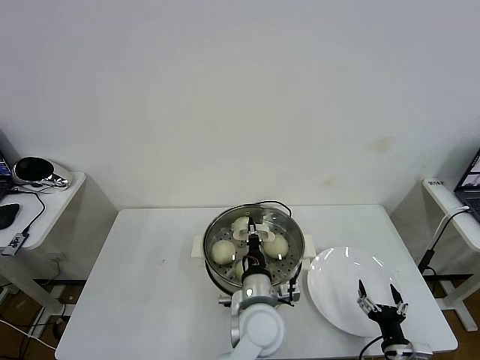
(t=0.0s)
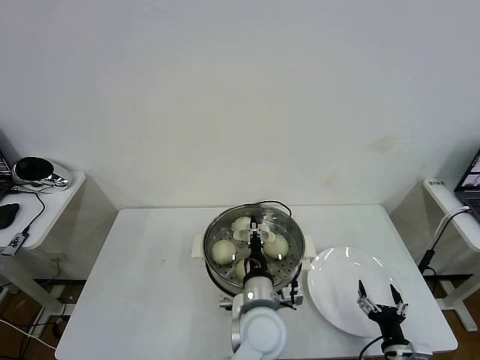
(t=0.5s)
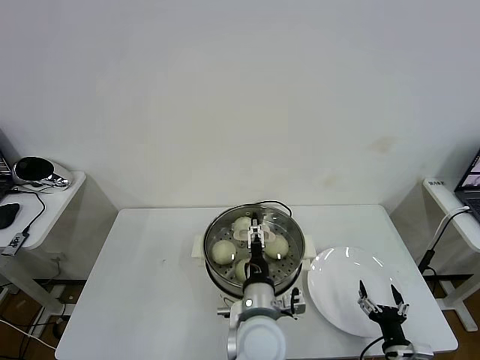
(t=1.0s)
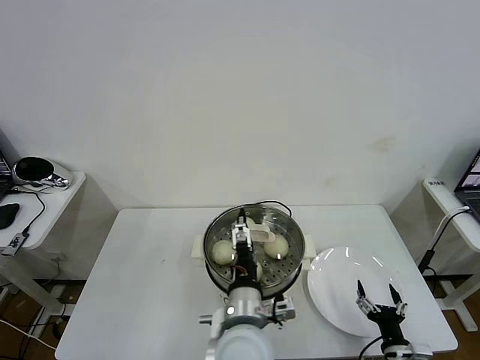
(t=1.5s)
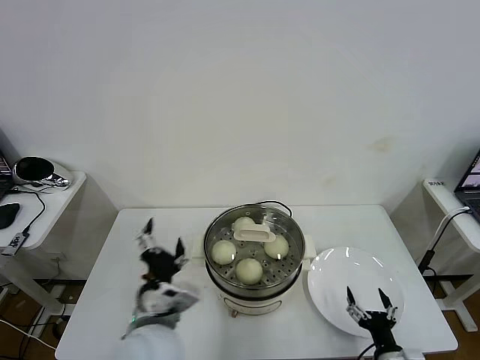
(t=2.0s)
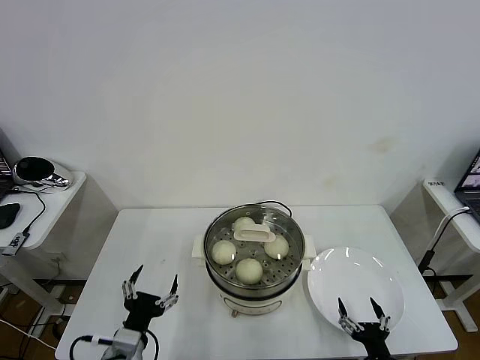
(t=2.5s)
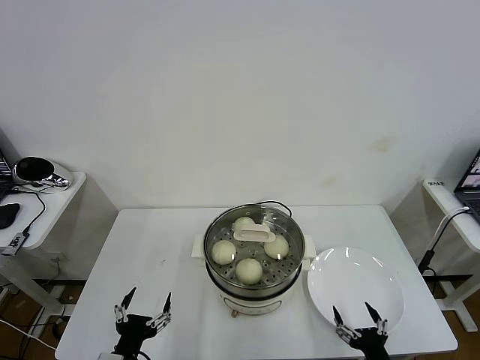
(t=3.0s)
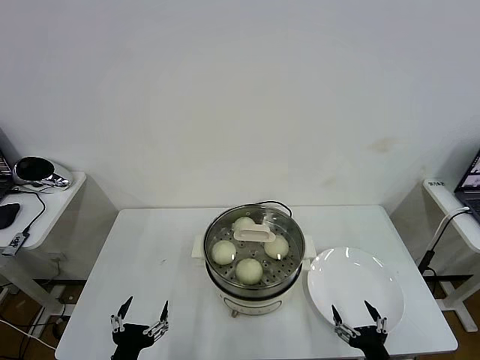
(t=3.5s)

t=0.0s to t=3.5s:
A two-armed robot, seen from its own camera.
Task of the whole recording: take steamed baozi put them in steamer then cover it.
t=0.0s to t=2.0s: The left gripper shifts approximately 20 cm to the left, upward and backward, and opens.
t=2.0s to t=3.5s: The left gripper heads to the left, downward and backward, covering roughly 20 cm. Meanwhile the right gripper changes place by about 5 cm.

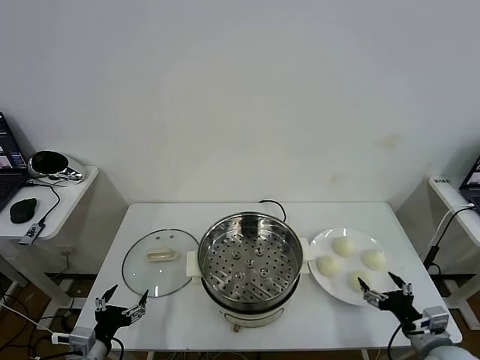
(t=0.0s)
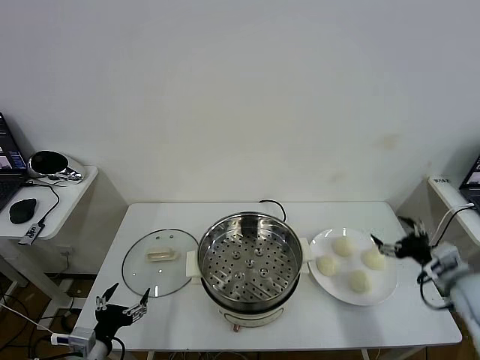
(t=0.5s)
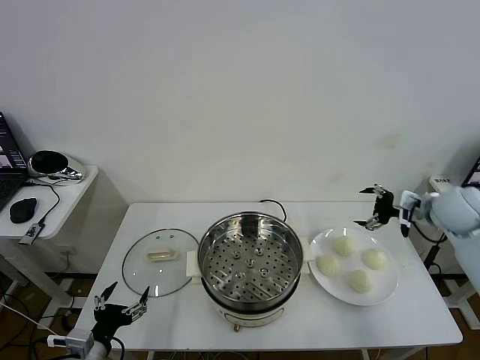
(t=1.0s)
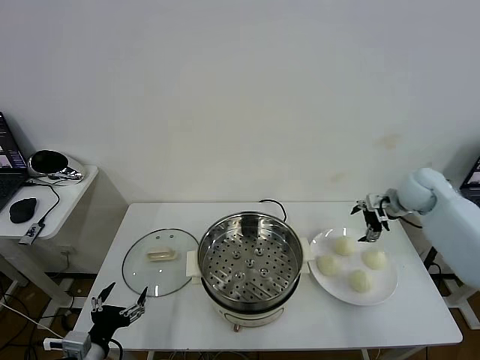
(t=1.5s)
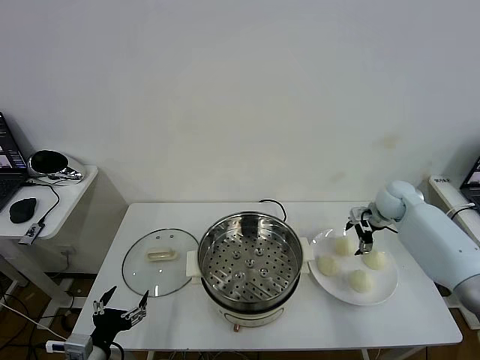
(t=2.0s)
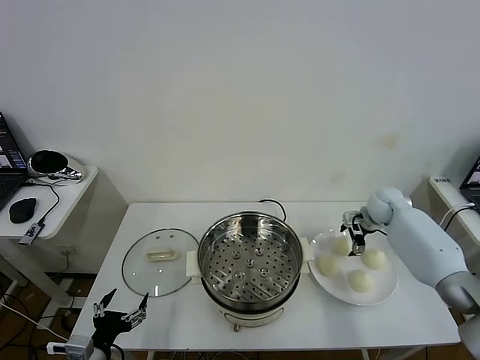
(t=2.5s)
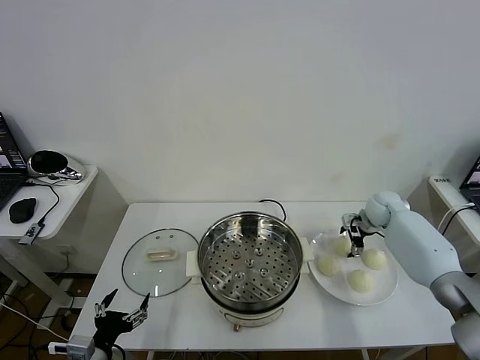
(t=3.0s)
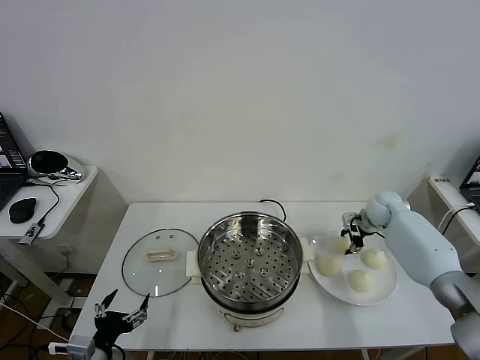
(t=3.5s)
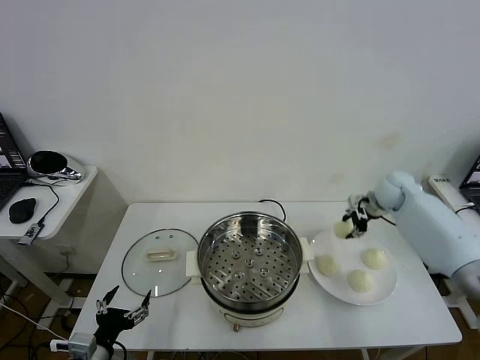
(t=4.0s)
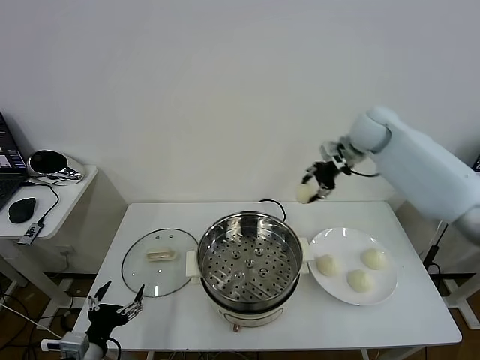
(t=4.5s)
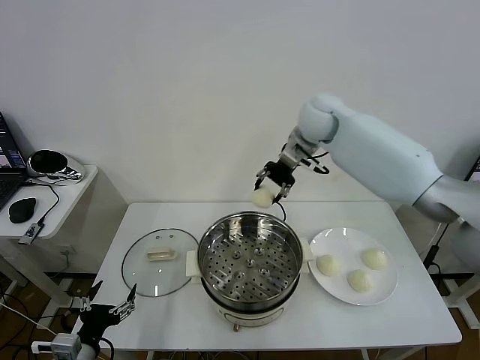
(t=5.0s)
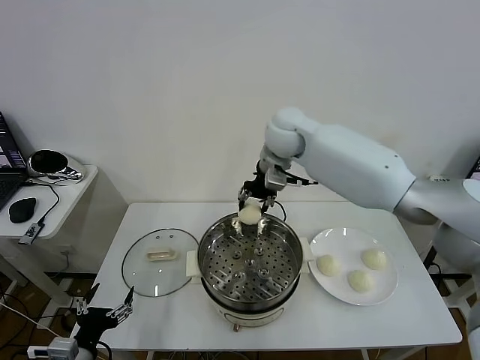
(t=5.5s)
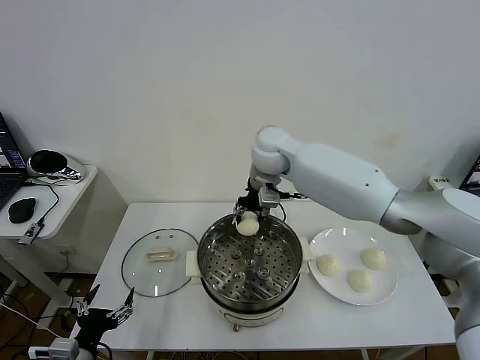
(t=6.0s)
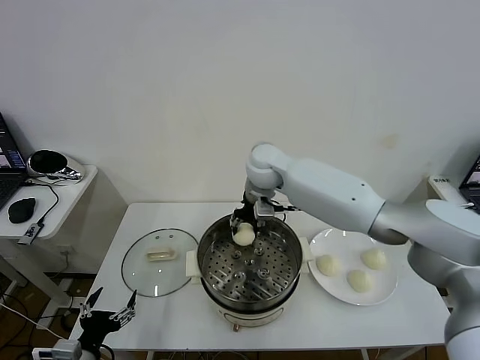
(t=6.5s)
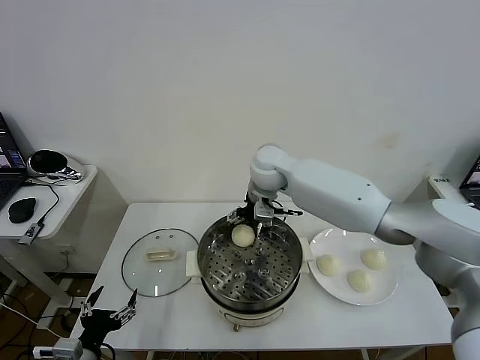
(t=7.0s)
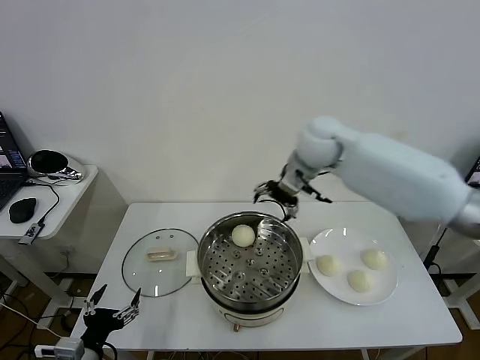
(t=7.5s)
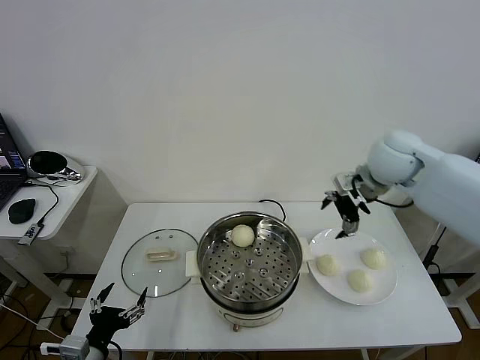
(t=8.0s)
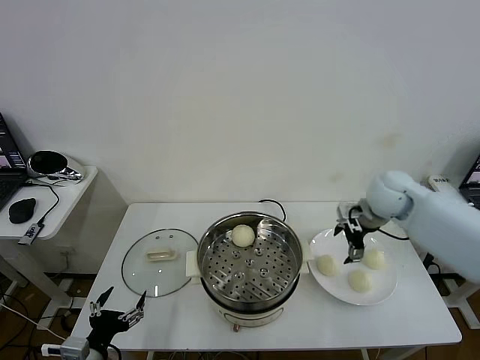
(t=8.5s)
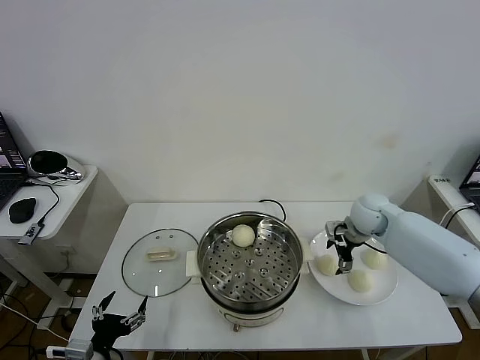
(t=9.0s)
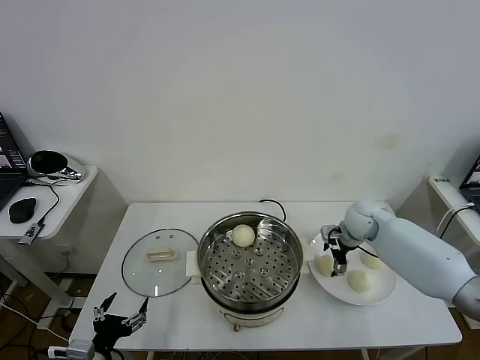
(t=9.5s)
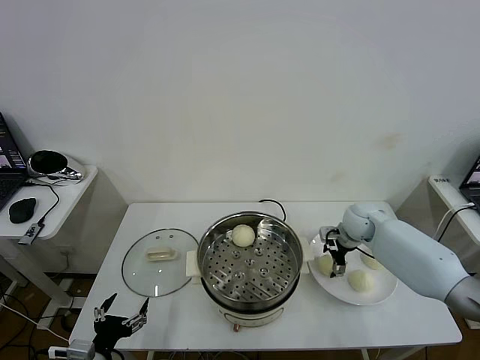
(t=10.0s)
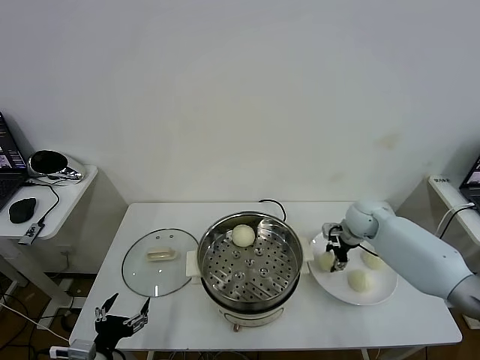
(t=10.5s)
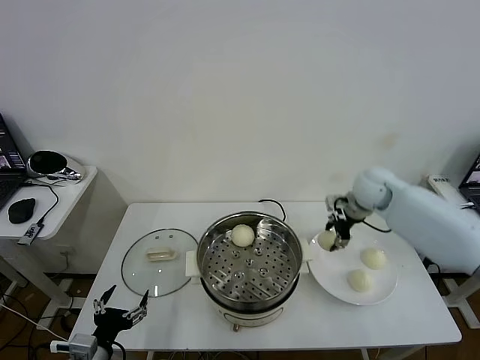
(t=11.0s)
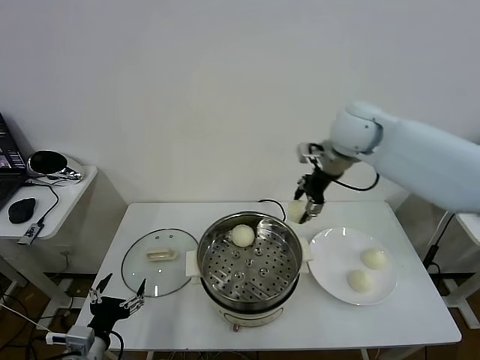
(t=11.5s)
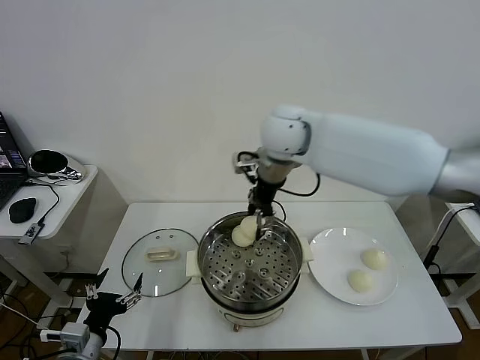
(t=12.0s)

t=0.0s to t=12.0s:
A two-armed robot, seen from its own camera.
Task of the whole recording: take steamed baozi put them in steamer then cover it.
Step, t=0.0s to t=3.0s: Grasp the baozi in the plate with right gripper.
Step, t=3.5s to t=7.0s: Place the baozi on the steamer with right gripper.
Step, t=7.5s to t=10.0s: Grasp the baozi in the plate with right gripper.
t=2.0s to t=4.0s: The right gripper is displaced upward by roughly 10 cm, and closes up.
t=4.0s to t=6.0s: The right gripper is displaced to the left by about 30 cm.
t=6.0s to t=8.0s: The right gripper heads to the right, covering roughly 25 cm, and opens up.
t=8.0s to t=10.0s: The right gripper is displaced downward by approximately 20 cm.
t=10.0s to t=12.0s: The right gripper goes about 35 cm upward and to the left, and closes.

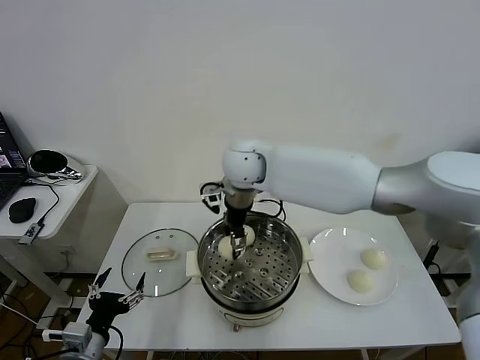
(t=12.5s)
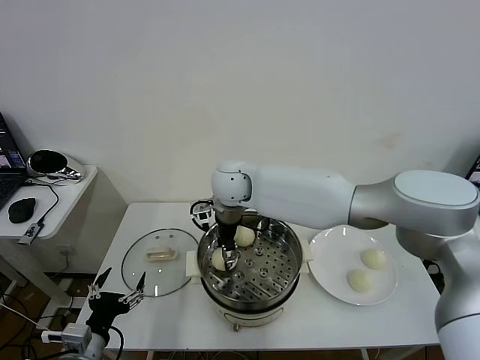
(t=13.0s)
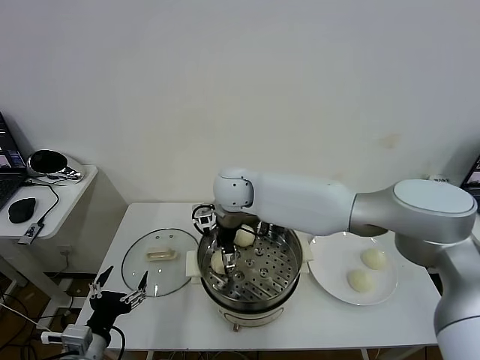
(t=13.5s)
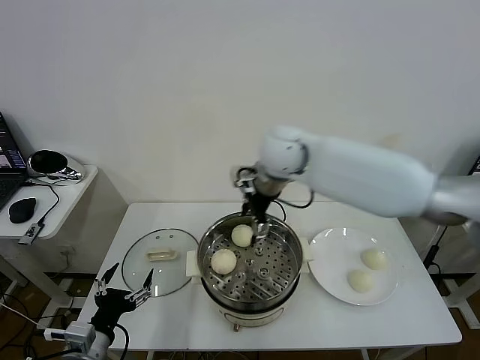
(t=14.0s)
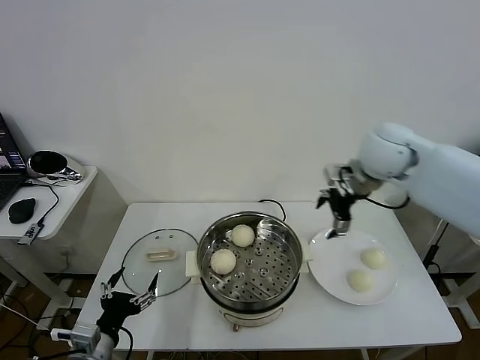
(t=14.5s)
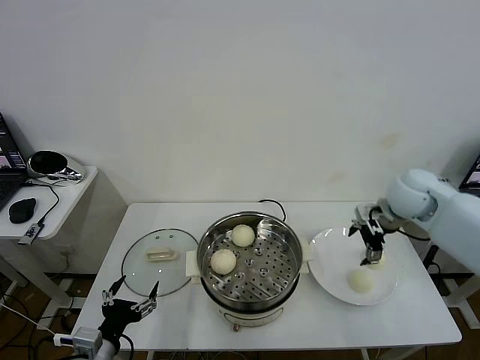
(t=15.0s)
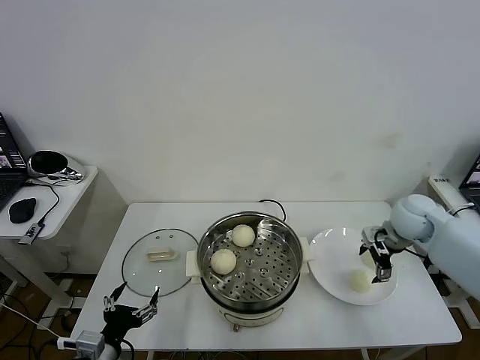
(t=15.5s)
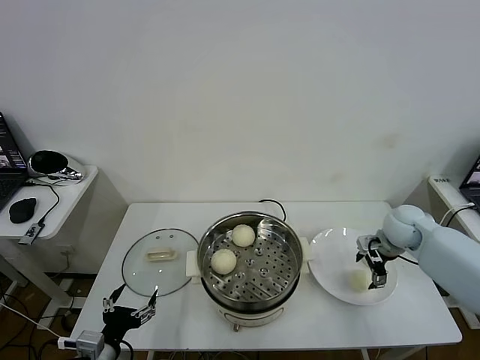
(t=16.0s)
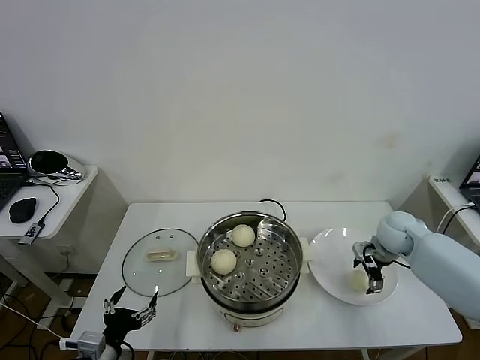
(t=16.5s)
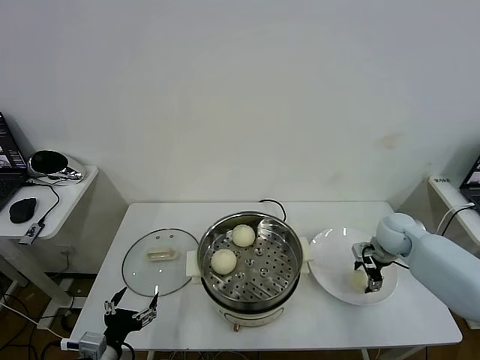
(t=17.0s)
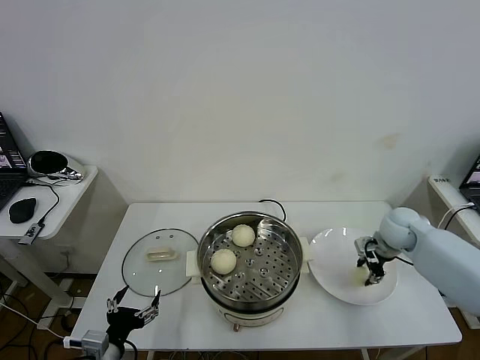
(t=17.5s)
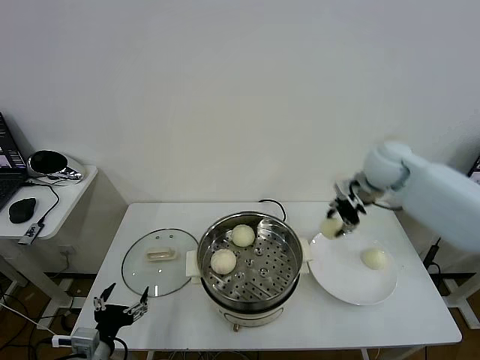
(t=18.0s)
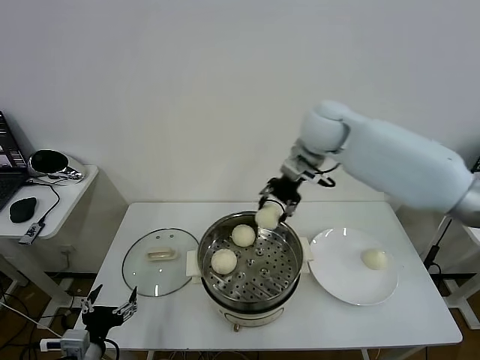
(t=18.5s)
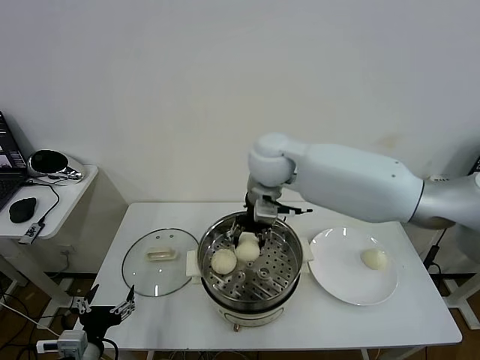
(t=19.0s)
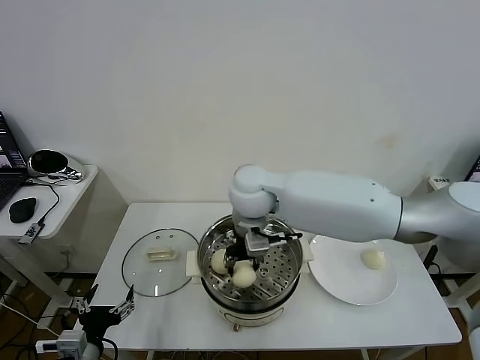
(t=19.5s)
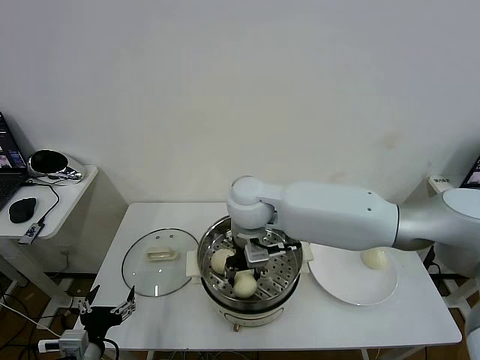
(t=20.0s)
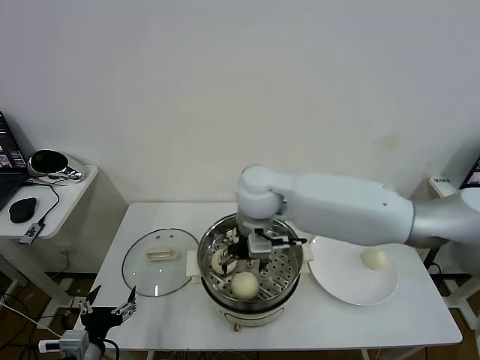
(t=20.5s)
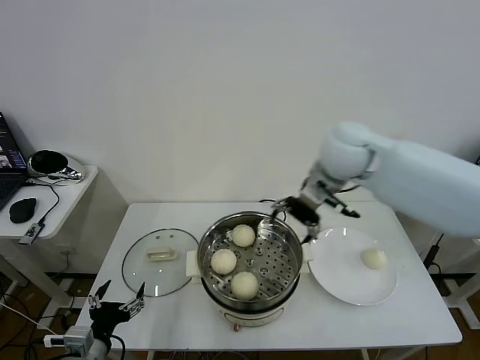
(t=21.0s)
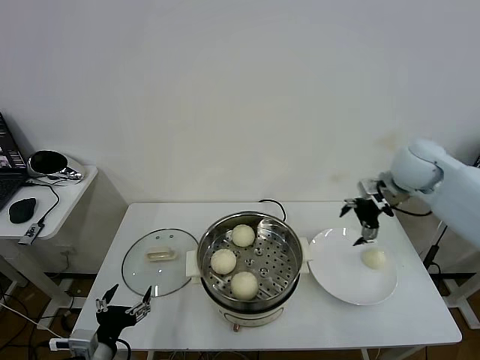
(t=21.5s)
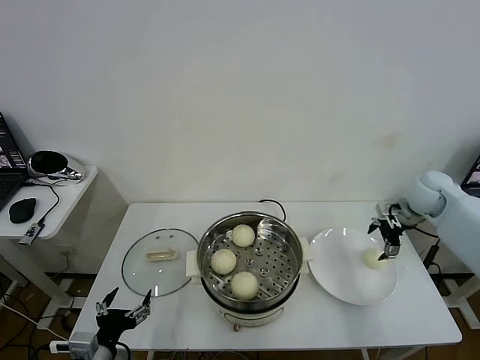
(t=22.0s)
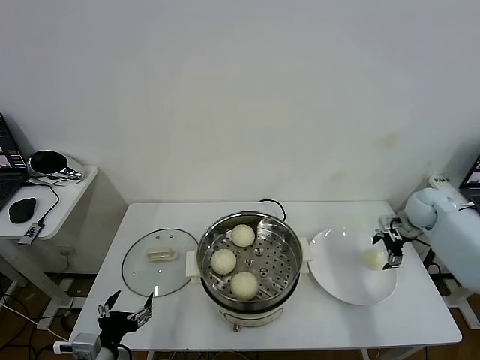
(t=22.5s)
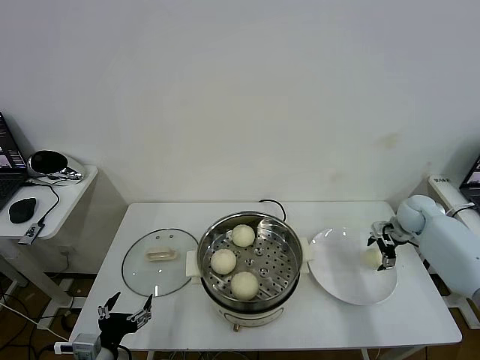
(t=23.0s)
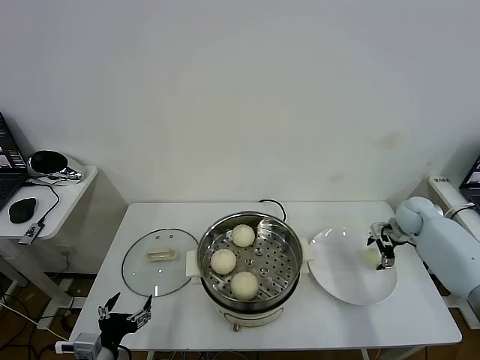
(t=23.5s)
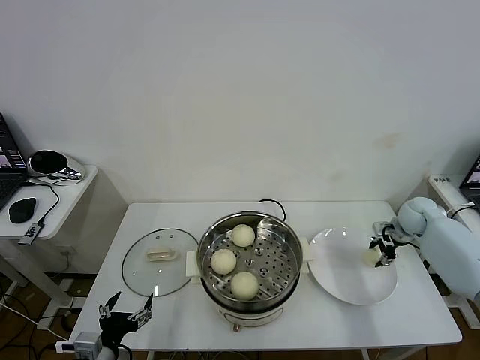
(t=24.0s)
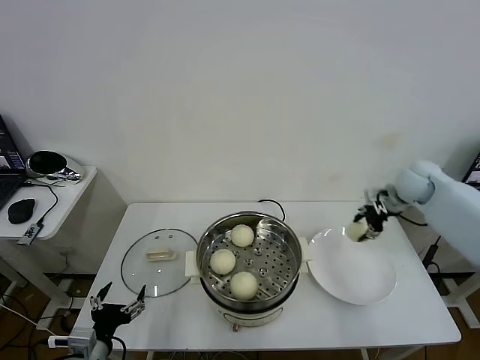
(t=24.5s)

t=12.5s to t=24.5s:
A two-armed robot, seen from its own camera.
Task of the whole recording: take steamed baozi put them in steamer then cover it.
Step, t=14.0s to t=17.0s: Grasp the baozi in the plate with right gripper.
Step, t=17.5s to t=20.0s: Place the baozi on the steamer with right gripper.
Step, t=20.5s to t=23.5s: Grasp the baozi in the plate with right gripper.
t=12.5s to t=14.5s: The right gripper heads to the right, covering some 30 cm, and opens its fingers.
t=14.5s to t=16.5s: The right gripper moves downward and to the right, about 25 cm.
t=16.5s to t=18.5s: The right gripper goes about 35 cm upward and to the left, and closes.
t=18.5s to t=20.5s: The right gripper moves to the left, backward and downward, approximately 15 cm, and opens.
t=20.5s to t=22.5s: The right gripper shifts approximately 40 cm to the right.
t=22.5s to t=24.5s: The right gripper shifts roughly 10 cm upward and to the left, and closes its fingers.
